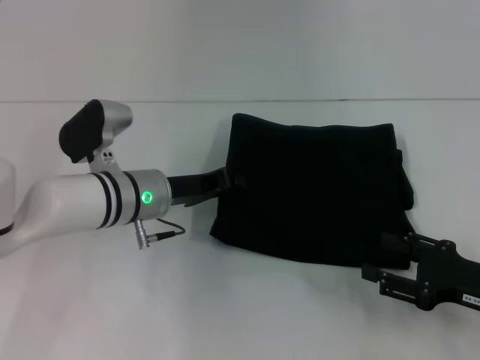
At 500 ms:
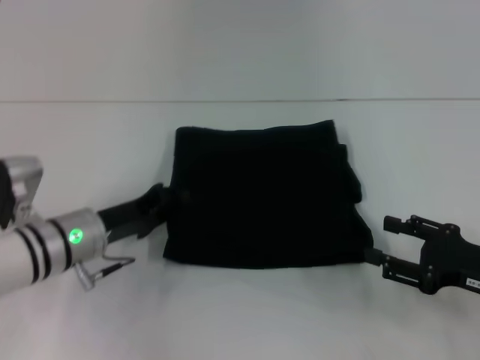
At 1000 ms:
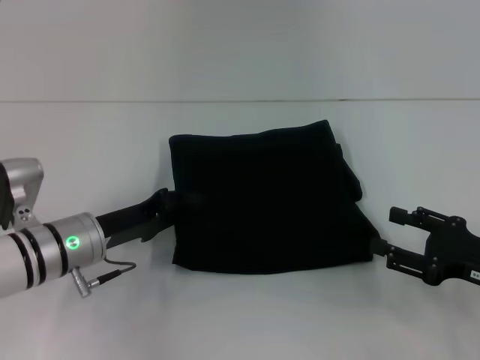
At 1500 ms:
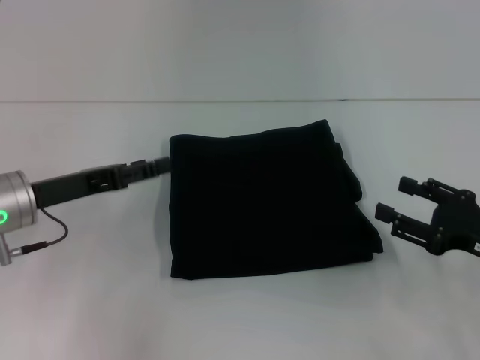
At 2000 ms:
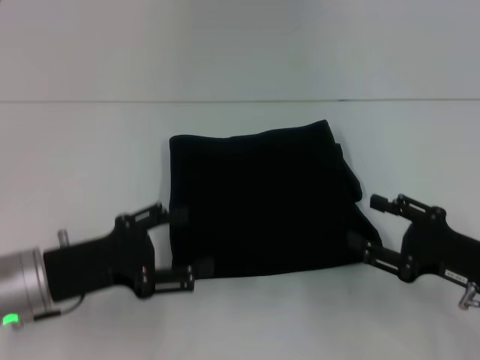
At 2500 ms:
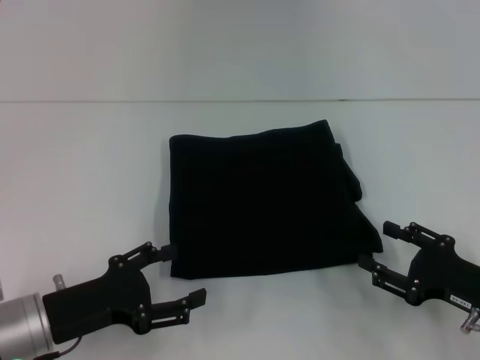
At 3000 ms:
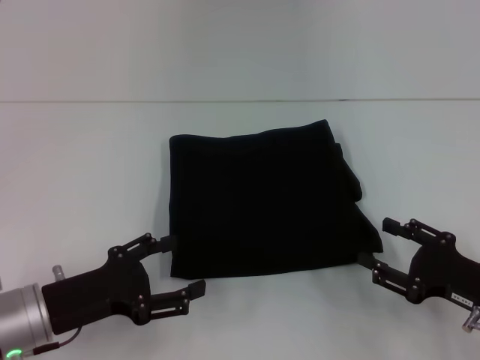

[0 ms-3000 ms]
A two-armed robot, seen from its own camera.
0 ms to 1500 ms: The left gripper is displaced to the left by some 15 cm.
1500 ms to 3000 ms: The right gripper changes place by some 5 cm. The left gripper goes approximately 10 cm backward and downward, and opens up.
